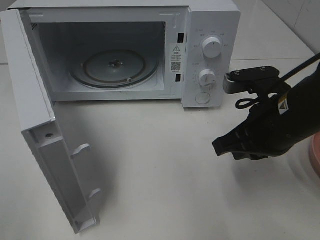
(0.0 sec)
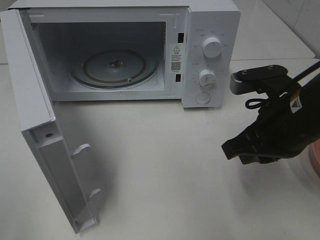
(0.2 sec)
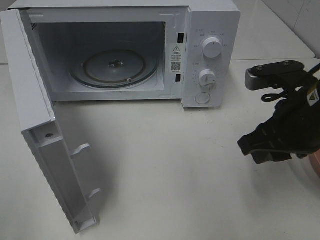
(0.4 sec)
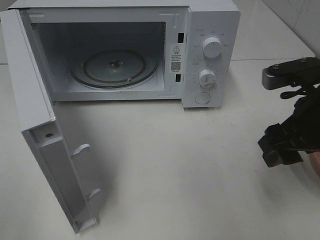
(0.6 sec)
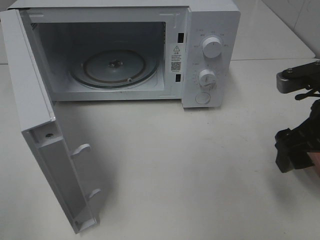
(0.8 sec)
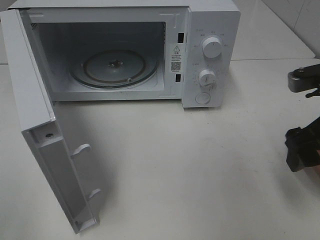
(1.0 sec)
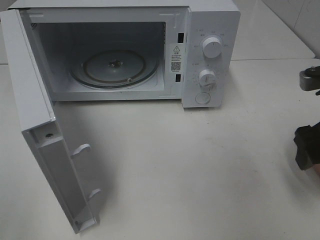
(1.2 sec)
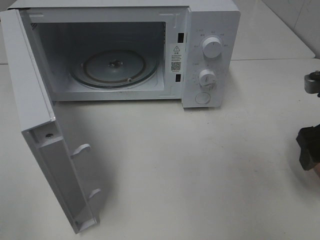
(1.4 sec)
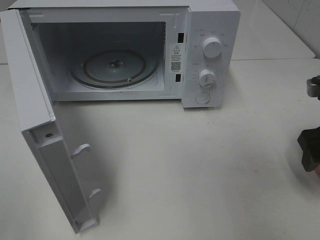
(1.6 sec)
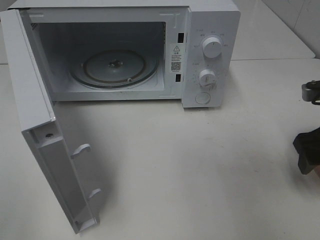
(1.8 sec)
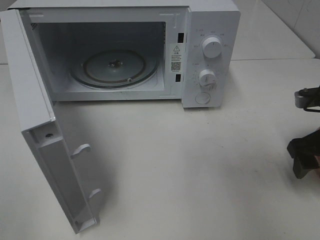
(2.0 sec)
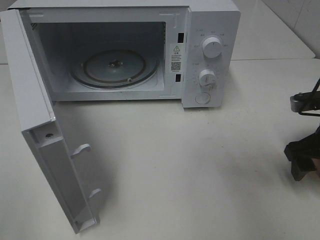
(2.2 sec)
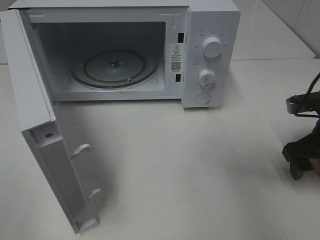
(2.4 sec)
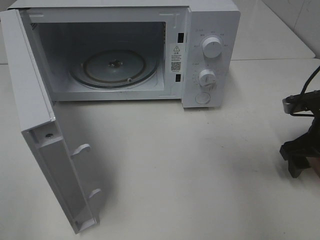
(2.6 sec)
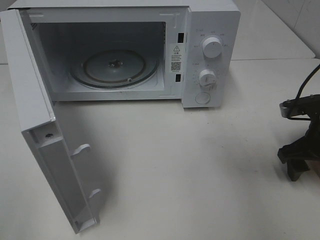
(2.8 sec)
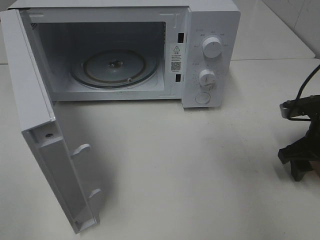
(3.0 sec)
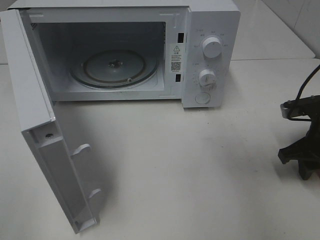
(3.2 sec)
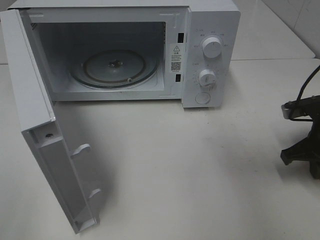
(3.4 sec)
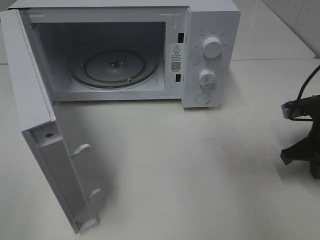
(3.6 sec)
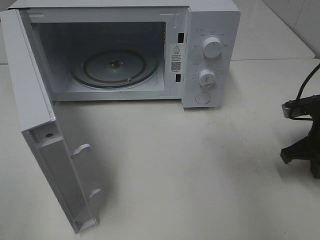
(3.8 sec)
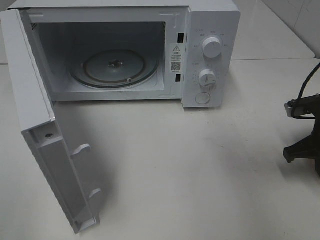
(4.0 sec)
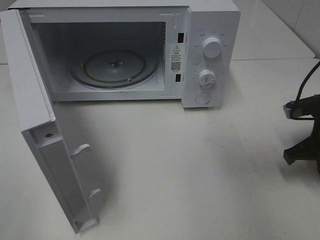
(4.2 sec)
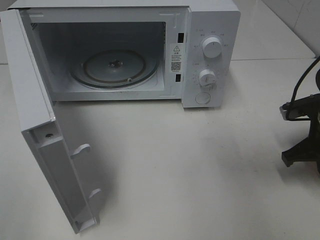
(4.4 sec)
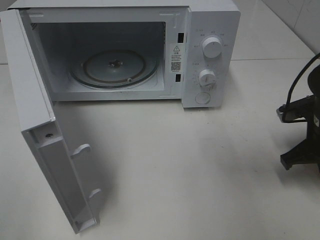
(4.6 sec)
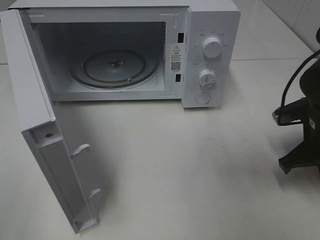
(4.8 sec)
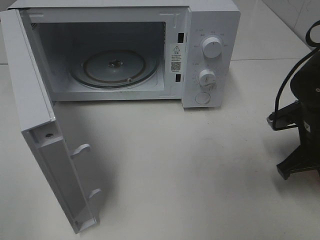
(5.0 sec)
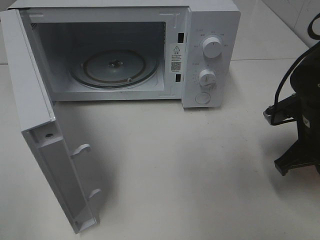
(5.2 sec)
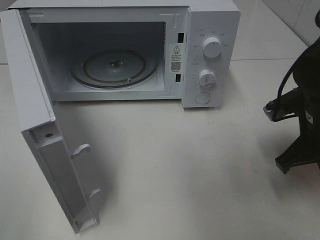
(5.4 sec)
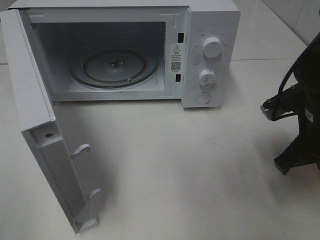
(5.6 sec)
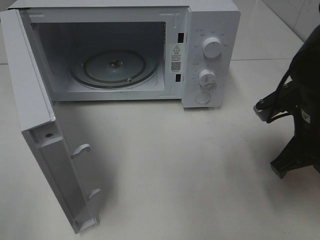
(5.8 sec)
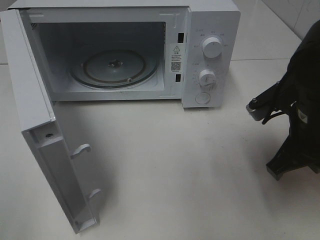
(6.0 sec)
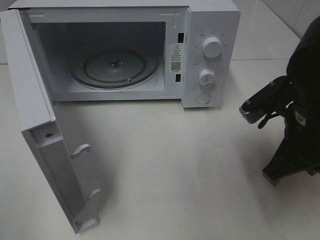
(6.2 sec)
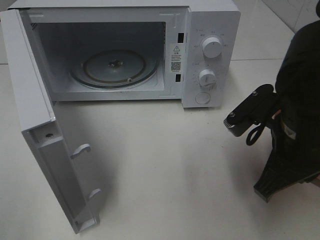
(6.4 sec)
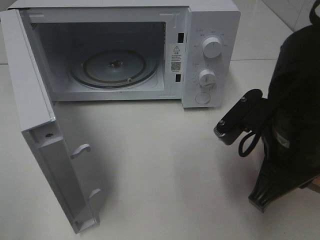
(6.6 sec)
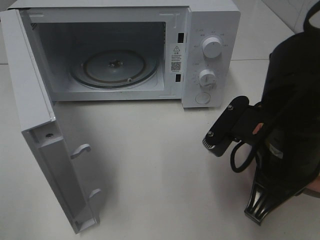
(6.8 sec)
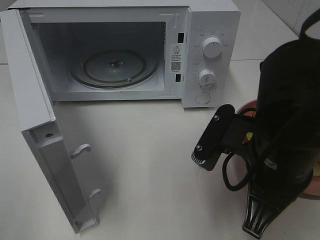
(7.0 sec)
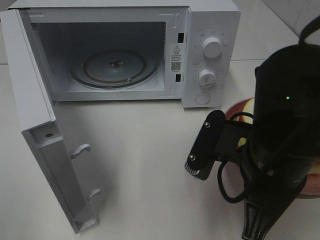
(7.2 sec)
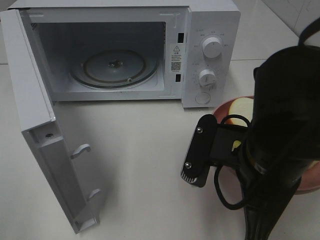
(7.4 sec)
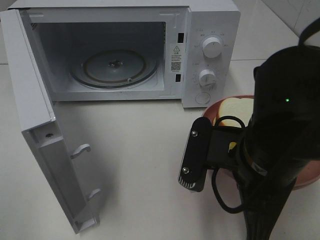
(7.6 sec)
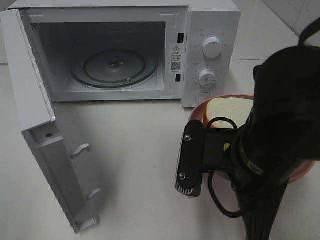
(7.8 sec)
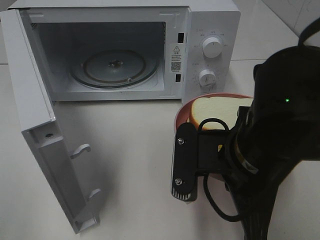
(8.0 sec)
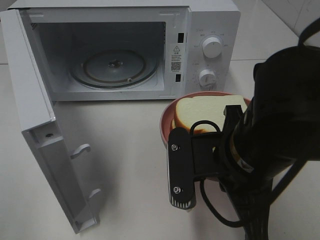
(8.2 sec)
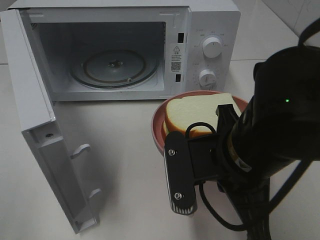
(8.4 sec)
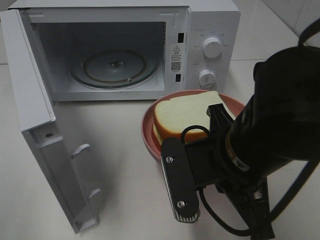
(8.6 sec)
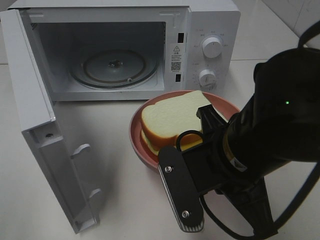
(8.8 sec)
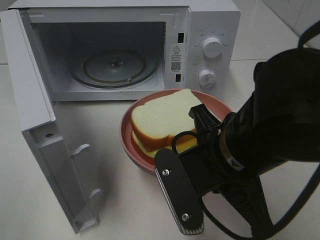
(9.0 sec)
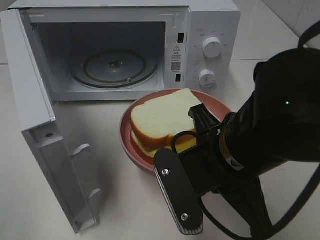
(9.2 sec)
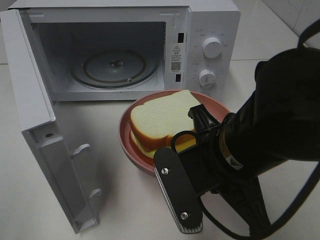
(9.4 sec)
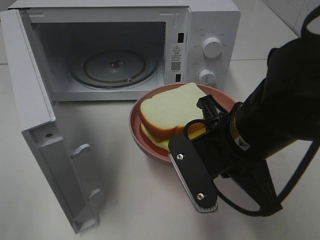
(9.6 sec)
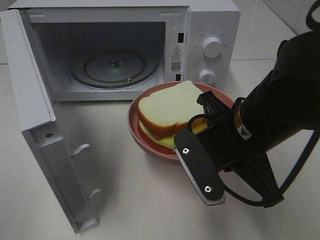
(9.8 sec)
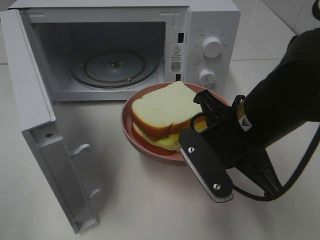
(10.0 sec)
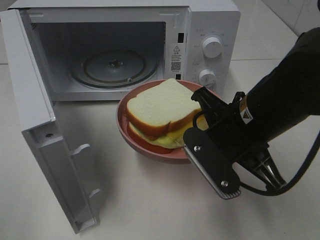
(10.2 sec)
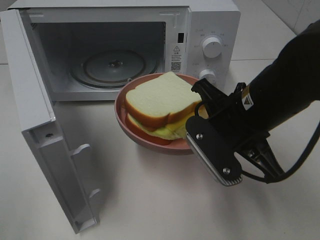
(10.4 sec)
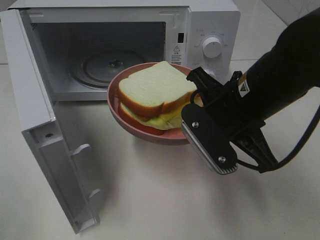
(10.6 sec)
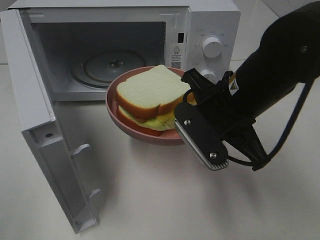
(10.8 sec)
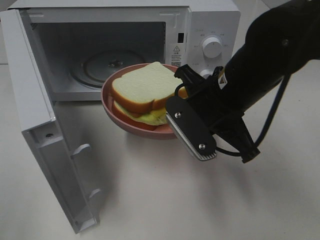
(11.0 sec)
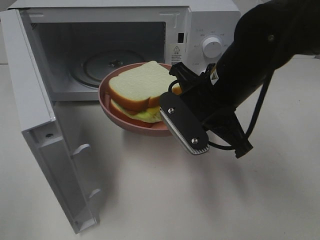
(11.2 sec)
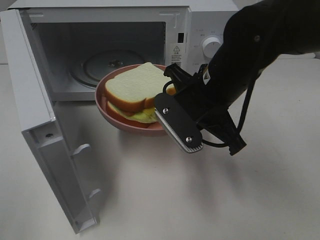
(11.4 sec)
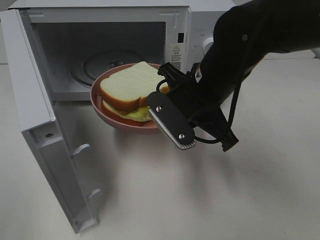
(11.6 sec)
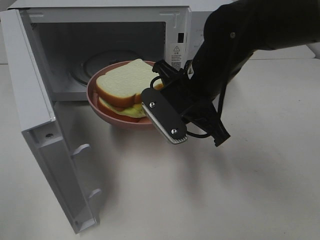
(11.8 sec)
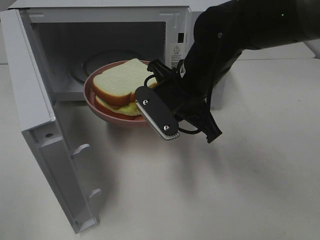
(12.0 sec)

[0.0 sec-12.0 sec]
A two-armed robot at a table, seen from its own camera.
Task of the whole recording: Heat Sandwich.
Step, 0.0 sec to 4.2 sec: Right hand: grab the plate with the sandwich.
0.0 sec to 1.6 sec: The right gripper heads to the right, covering about 10 cm, and opens up.
1.6 sec to 3.0 sec: The right gripper shifts approximately 5 cm downward.
3.0 sec to 4.4 sec: The right gripper closes its fingers.
4.4 sec to 6.0 sec: The right gripper goes some 10 cm to the left, upward and backward.
6.0 sec to 7.6 sec: The right gripper travels to the left and backward by roughly 10 cm.
9.0 sec to 10.4 sec: The right gripper shifts roughly 5 cm forward.
10.4 sec to 12.0 sec: The right gripper moves forward and to the left, approximately 10 cm.

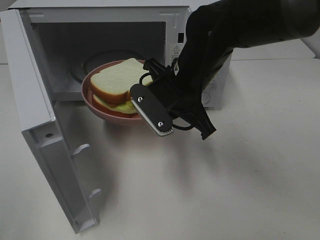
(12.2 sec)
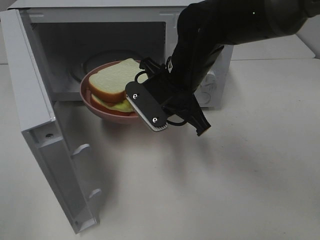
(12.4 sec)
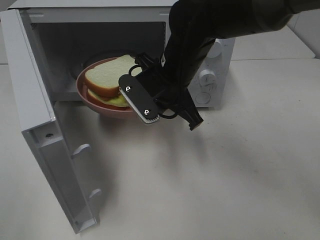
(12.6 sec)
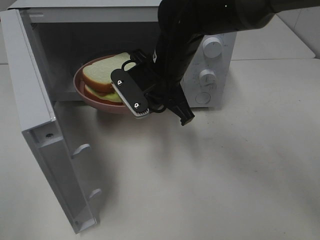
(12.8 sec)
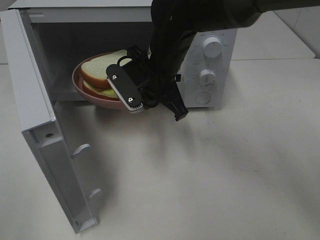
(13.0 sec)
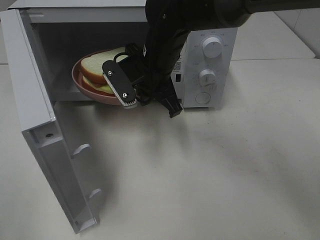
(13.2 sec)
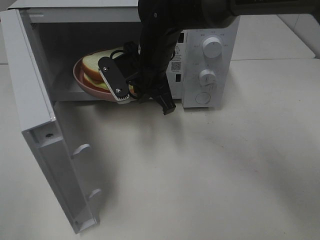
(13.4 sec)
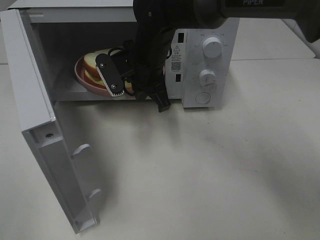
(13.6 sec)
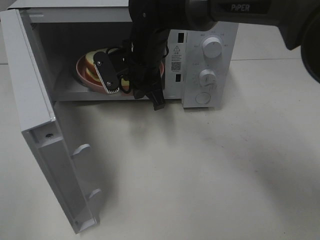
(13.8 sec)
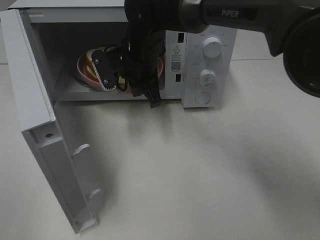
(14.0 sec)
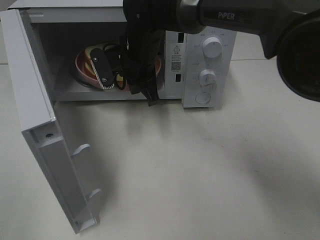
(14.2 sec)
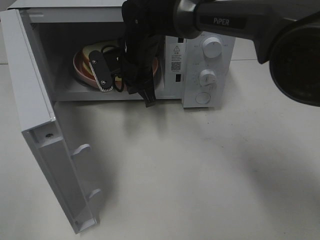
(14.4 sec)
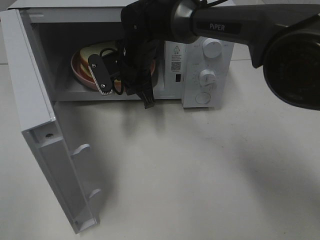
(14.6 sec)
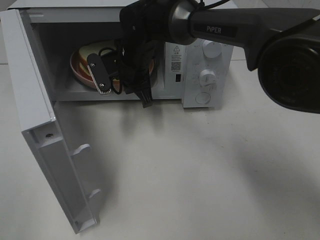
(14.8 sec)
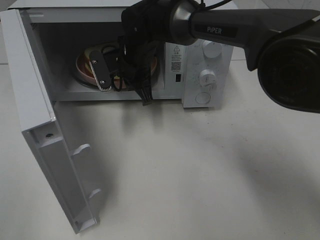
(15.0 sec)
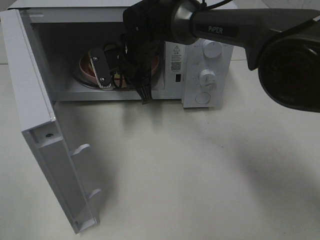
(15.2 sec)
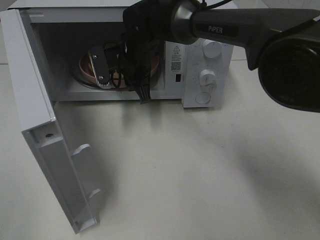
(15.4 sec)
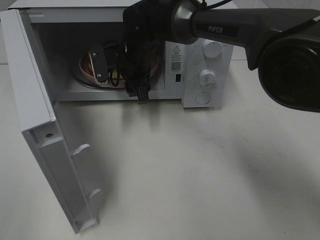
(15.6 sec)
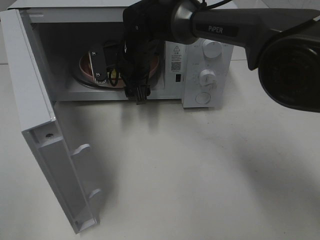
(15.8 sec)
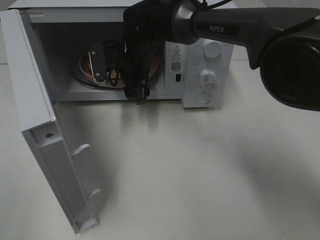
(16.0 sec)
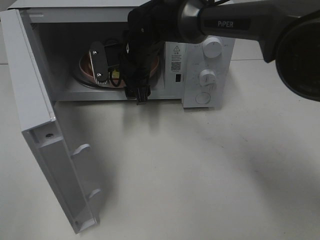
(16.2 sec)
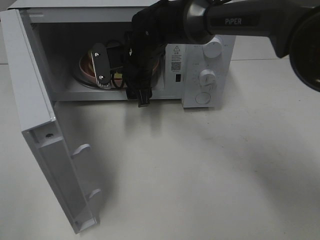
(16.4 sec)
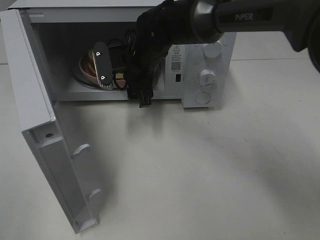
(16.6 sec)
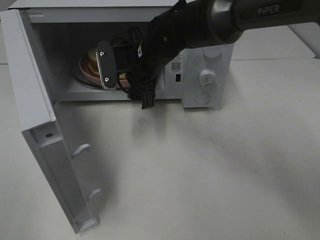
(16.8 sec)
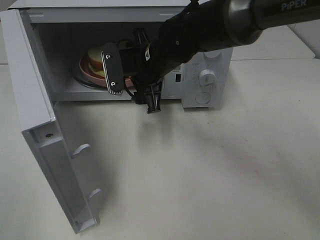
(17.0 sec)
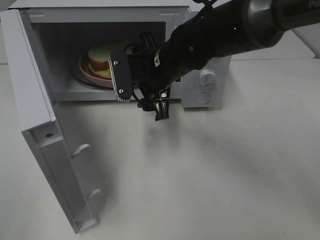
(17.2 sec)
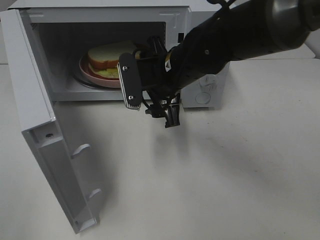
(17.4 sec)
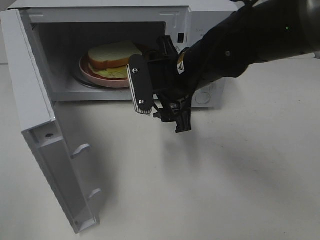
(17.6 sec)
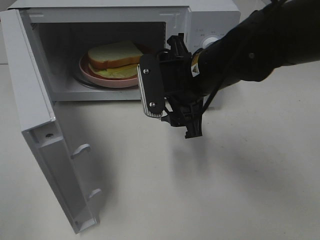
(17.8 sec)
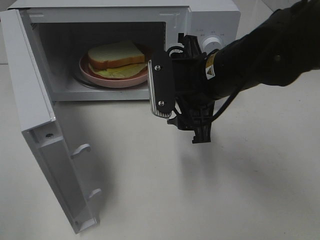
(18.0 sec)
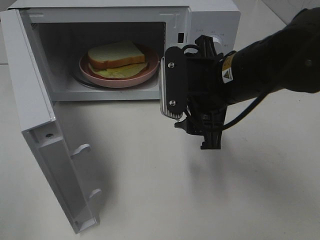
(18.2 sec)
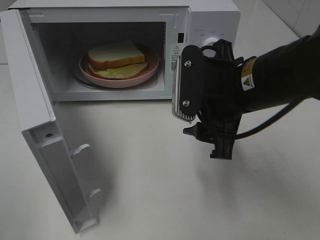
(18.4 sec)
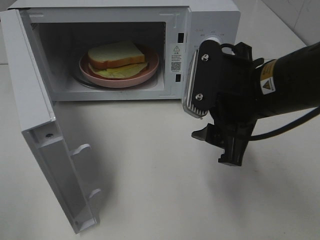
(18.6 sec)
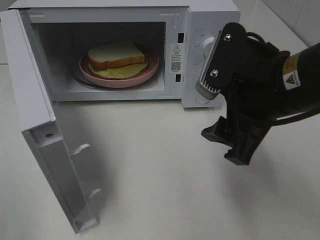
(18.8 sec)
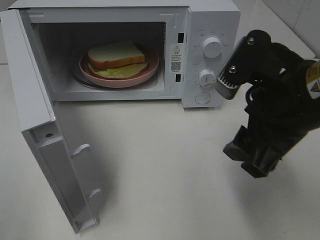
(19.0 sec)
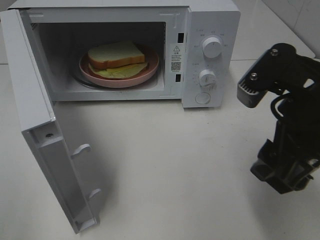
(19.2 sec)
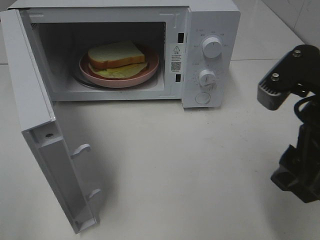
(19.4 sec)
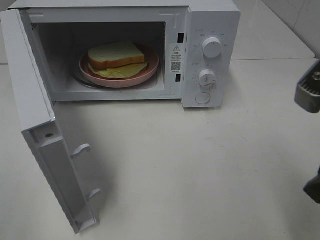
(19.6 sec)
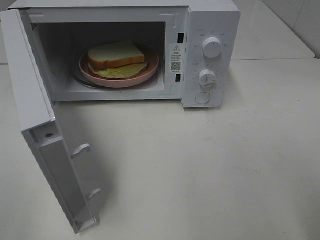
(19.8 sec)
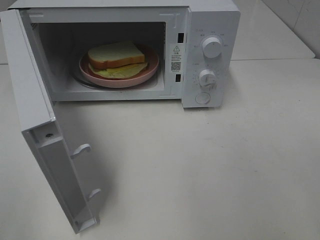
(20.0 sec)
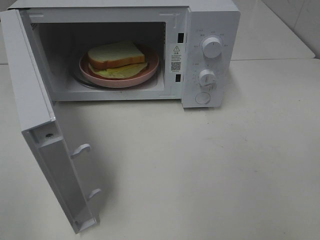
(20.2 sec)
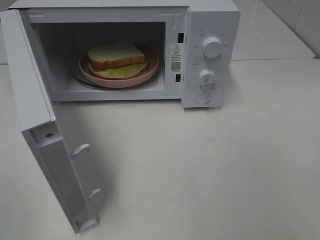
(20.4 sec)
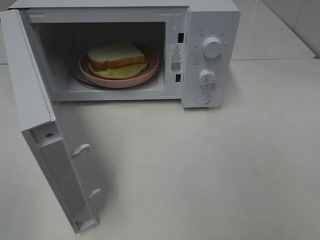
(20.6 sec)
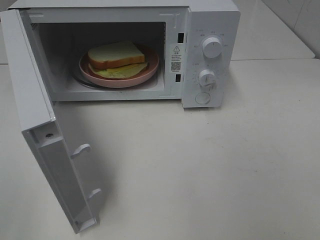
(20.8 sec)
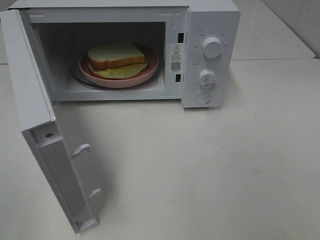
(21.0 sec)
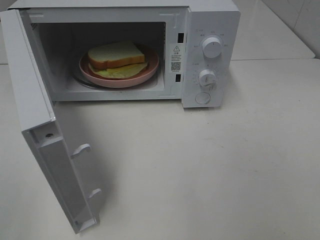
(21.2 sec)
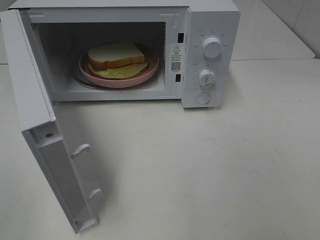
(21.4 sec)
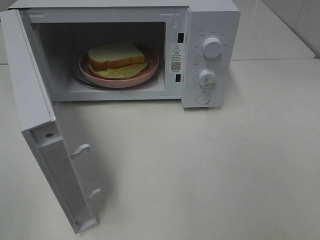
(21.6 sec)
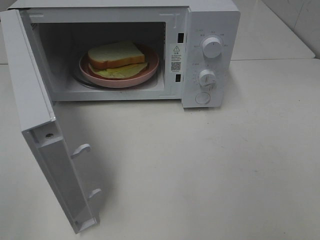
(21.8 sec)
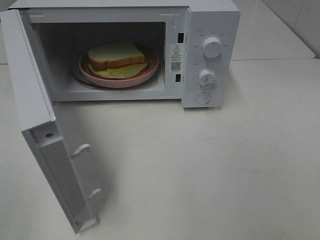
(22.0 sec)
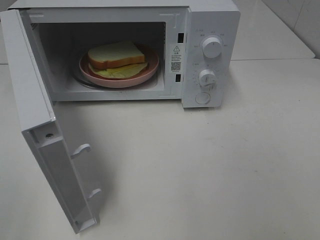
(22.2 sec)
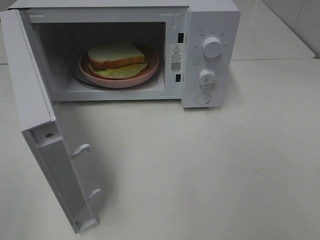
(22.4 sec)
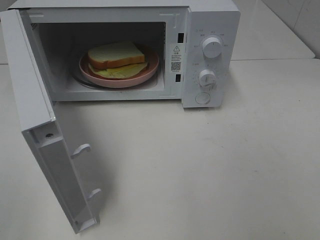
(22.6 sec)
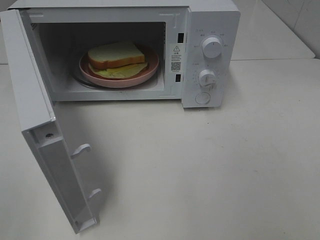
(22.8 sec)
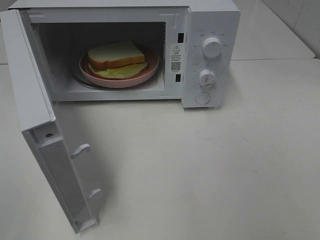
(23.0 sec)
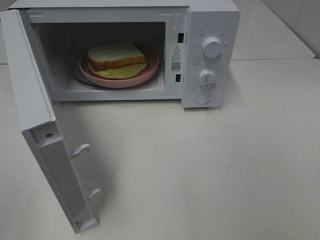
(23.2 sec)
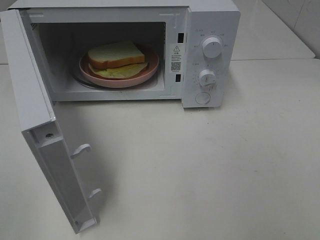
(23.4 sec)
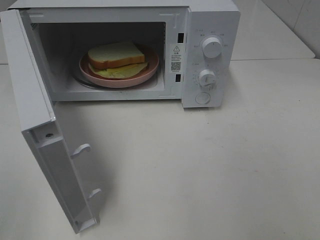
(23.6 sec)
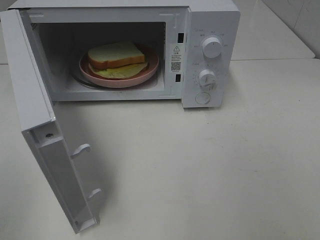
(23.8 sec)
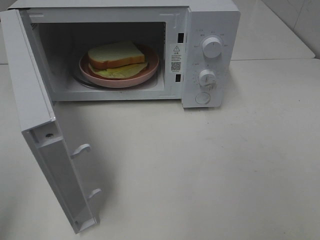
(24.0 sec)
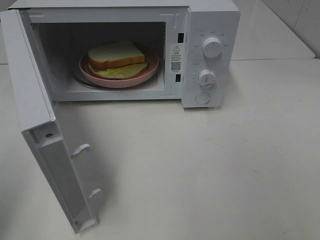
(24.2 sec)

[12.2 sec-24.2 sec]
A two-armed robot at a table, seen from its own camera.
Task of the whole recording: Heat Sandwich.
Step, 12.2 sec to 16.6 sec: Right hand: place the plate in the microwave.
12.2 sec to 13.8 sec: The right gripper travels forward and to the left by about 10 cm.
13.8 sec to 15.2 sec: There are only small adjustments of the grippers.
15.2 sec to 16.6 sec: The right gripper opens up.
16.6 sec to 18.2 sec: The right gripper goes some 20 cm backward and to the right.
18.2 sec to 19.8 sec: The right gripper goes roughly 20 cm backward, to the right and upward.
21.2 sec to 22.6 sec: The two grippers keep their place.
